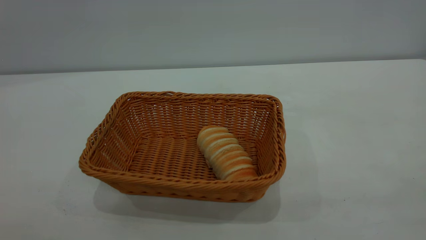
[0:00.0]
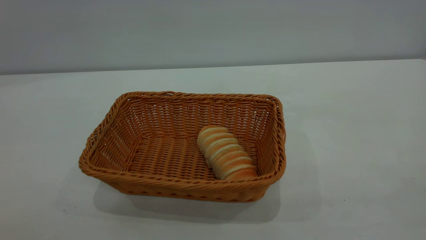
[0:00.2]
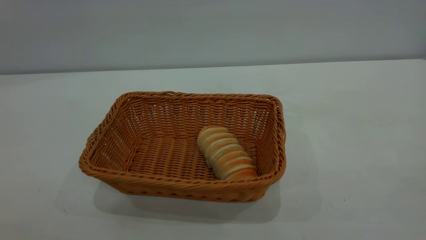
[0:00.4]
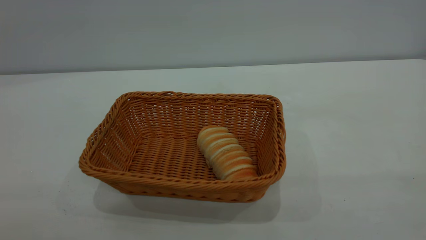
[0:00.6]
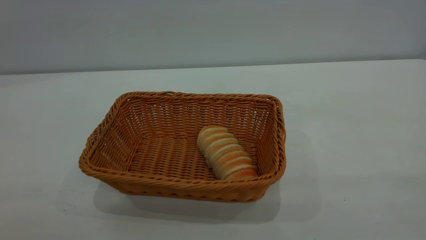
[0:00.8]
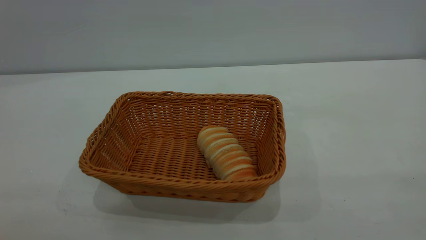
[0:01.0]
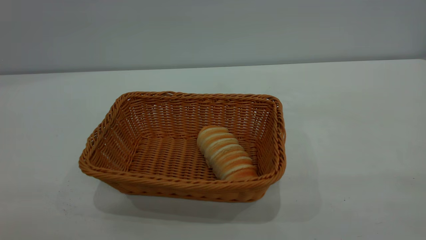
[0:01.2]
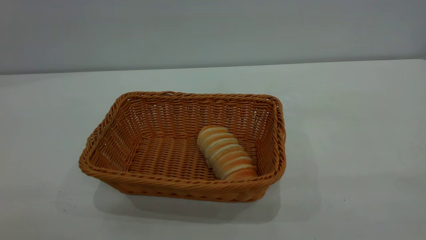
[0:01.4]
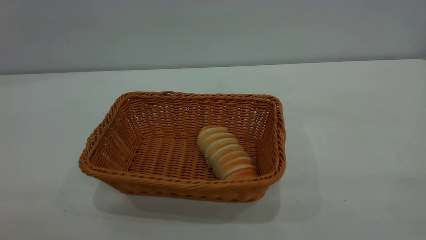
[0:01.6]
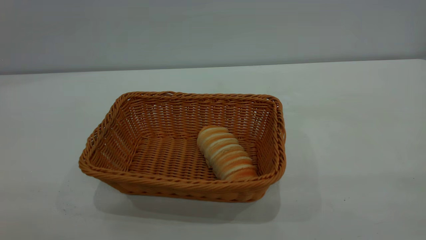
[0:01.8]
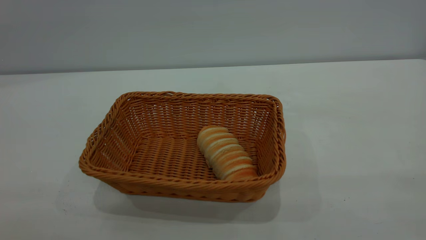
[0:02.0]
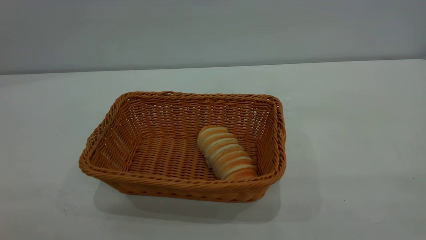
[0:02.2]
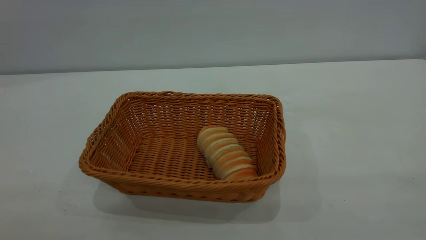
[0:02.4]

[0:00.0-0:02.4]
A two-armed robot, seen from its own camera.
Task of the whole recording: One hand grasps the yellow basket and places it in the middle of the table, while the other hand picks up the long bread and puts it into the yellow basket.
0:01.2 to 0:02.4: Both grippers stay put.

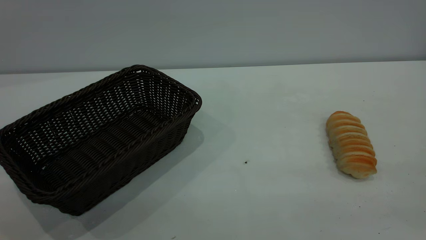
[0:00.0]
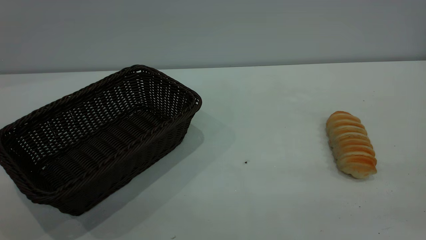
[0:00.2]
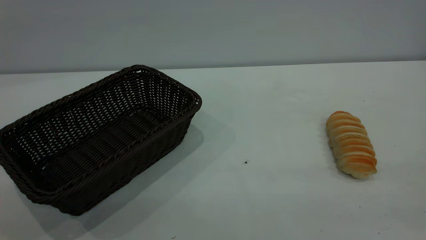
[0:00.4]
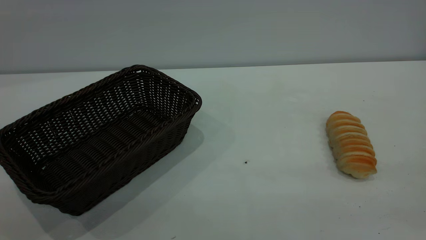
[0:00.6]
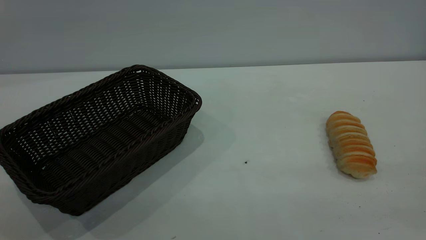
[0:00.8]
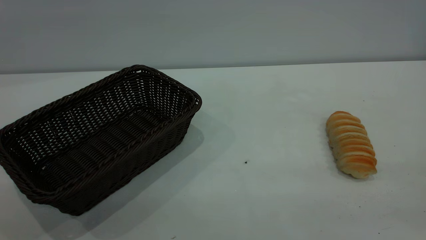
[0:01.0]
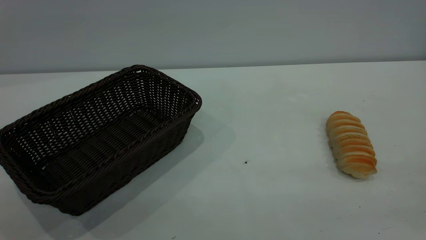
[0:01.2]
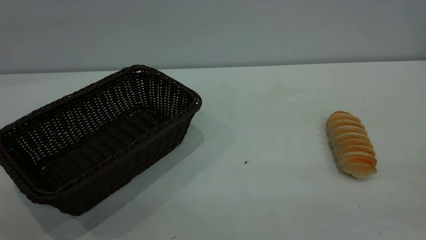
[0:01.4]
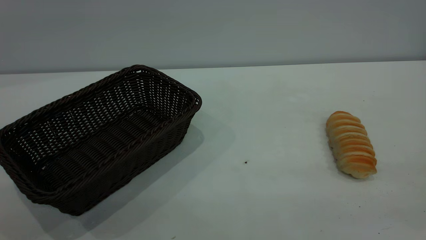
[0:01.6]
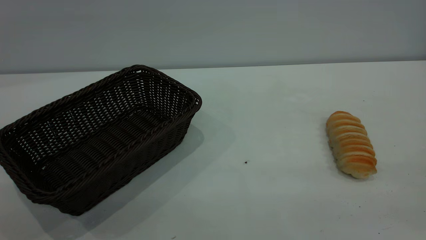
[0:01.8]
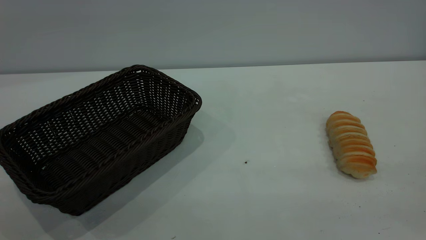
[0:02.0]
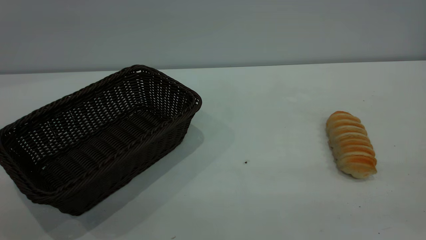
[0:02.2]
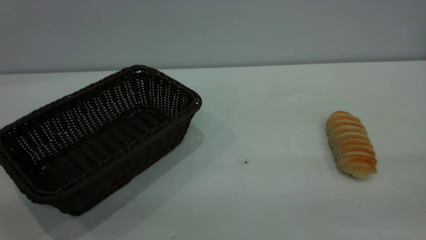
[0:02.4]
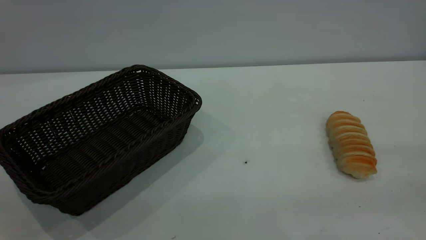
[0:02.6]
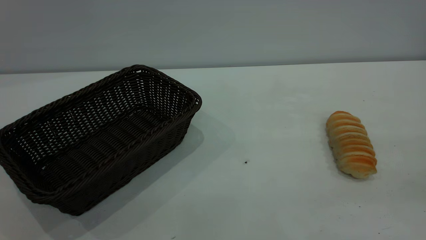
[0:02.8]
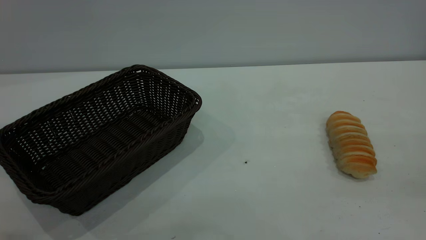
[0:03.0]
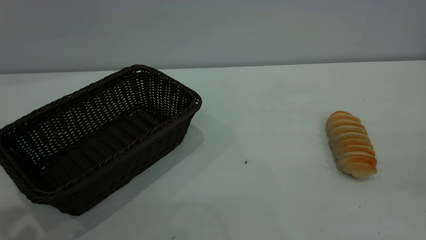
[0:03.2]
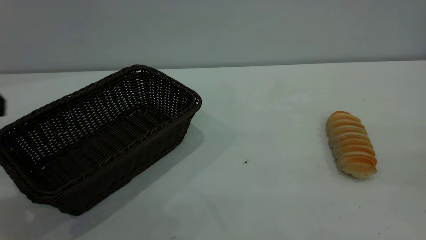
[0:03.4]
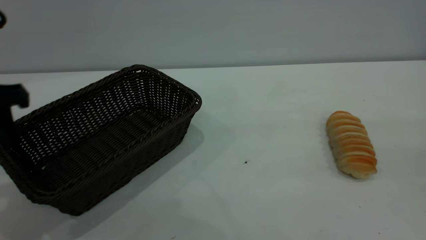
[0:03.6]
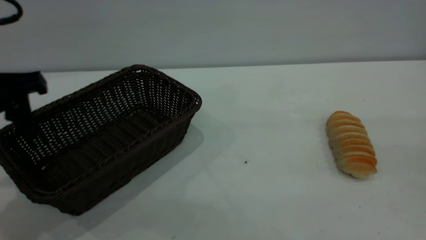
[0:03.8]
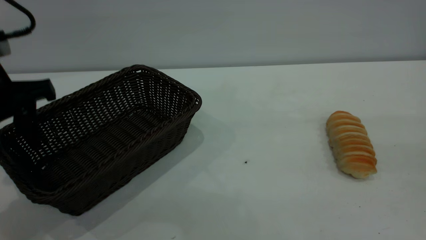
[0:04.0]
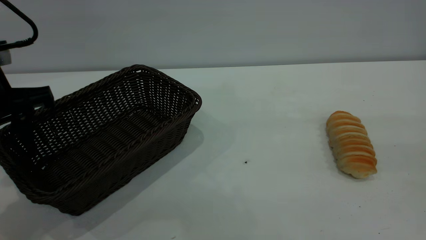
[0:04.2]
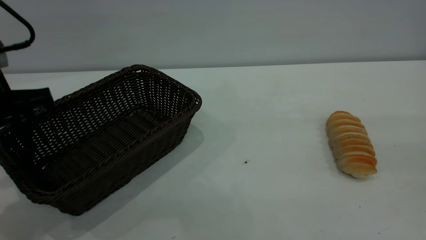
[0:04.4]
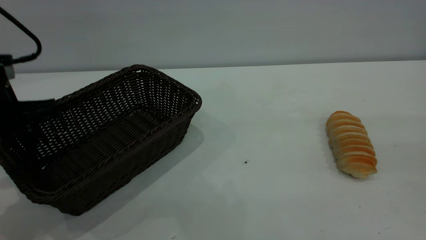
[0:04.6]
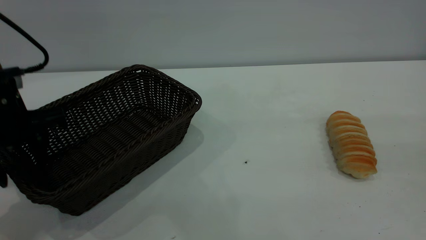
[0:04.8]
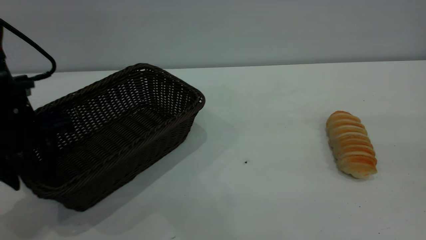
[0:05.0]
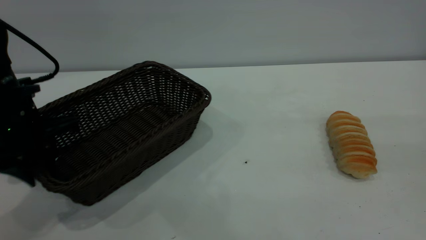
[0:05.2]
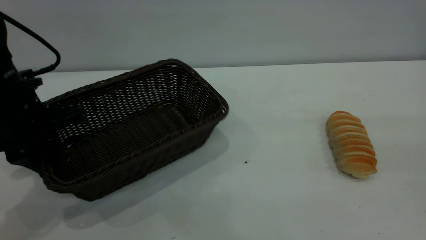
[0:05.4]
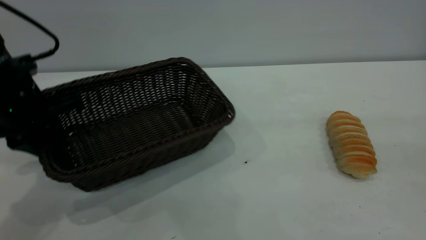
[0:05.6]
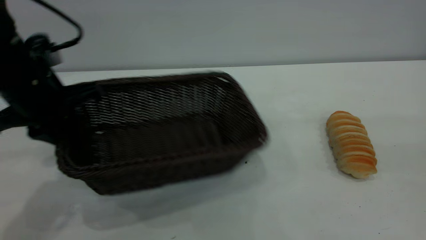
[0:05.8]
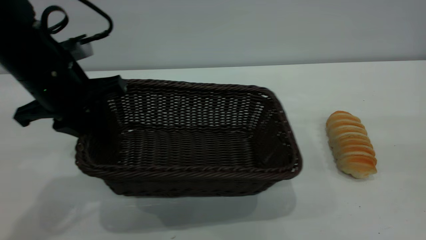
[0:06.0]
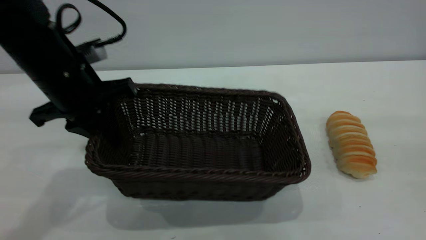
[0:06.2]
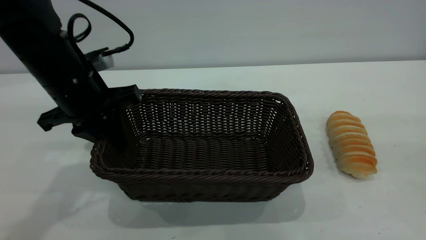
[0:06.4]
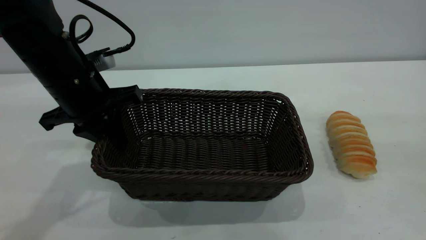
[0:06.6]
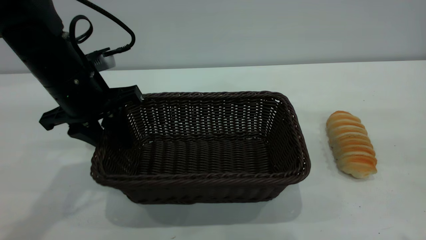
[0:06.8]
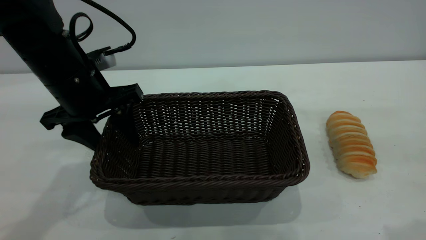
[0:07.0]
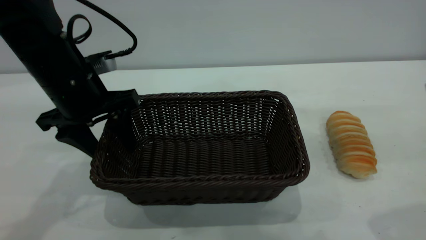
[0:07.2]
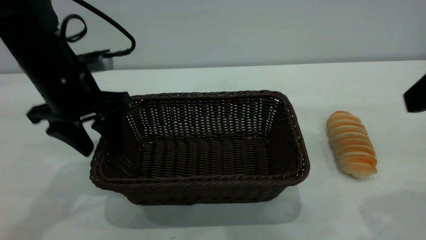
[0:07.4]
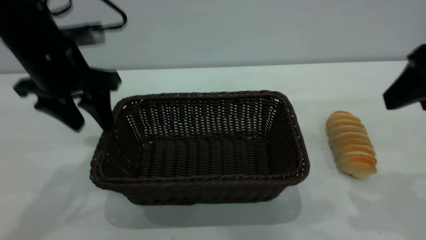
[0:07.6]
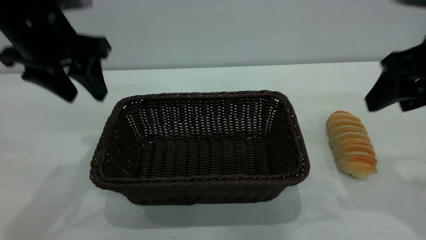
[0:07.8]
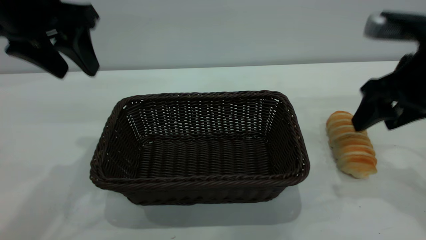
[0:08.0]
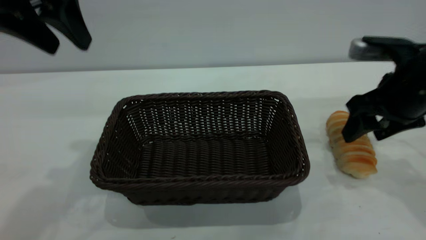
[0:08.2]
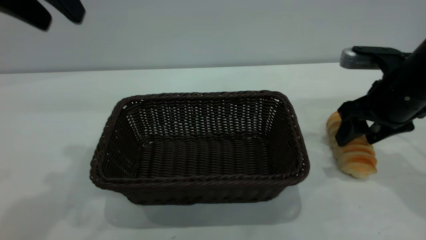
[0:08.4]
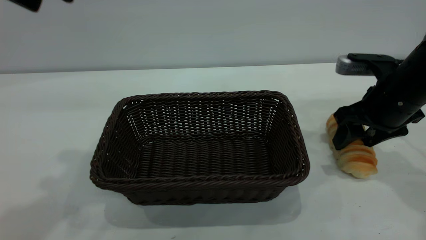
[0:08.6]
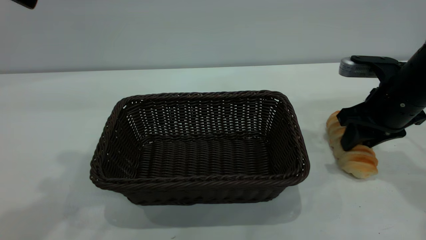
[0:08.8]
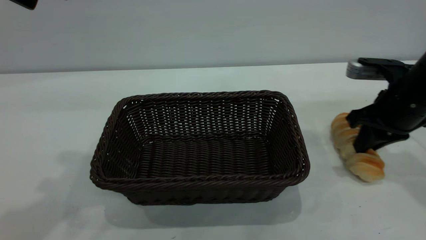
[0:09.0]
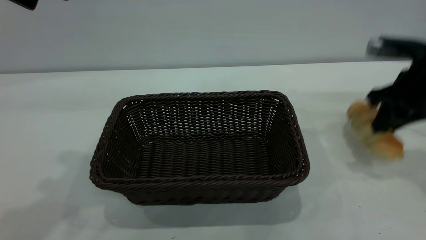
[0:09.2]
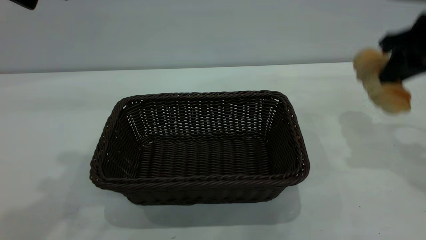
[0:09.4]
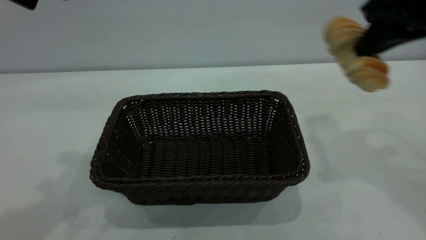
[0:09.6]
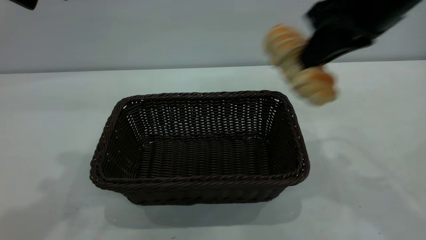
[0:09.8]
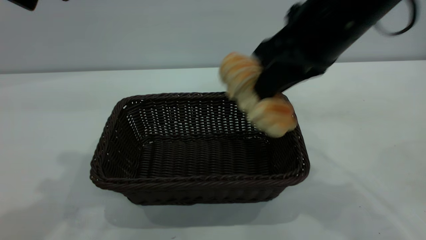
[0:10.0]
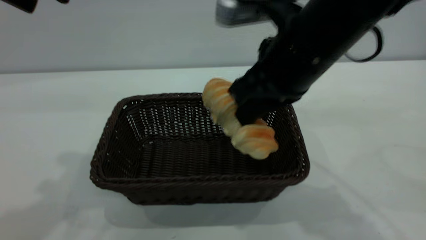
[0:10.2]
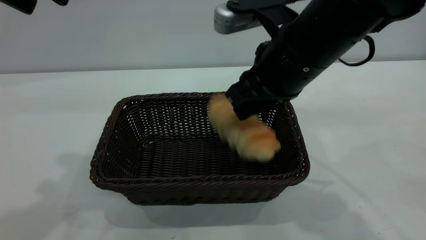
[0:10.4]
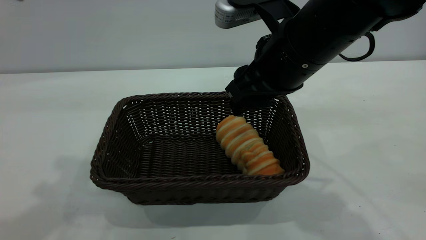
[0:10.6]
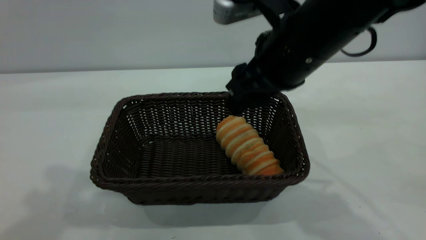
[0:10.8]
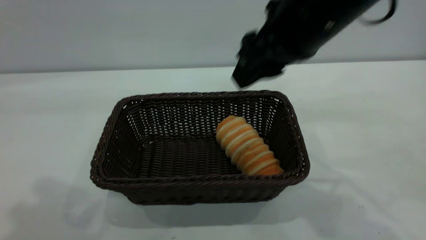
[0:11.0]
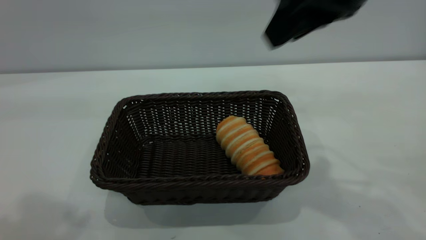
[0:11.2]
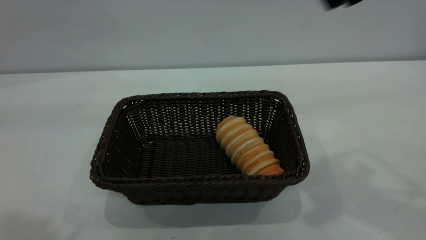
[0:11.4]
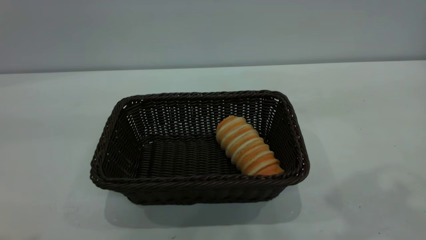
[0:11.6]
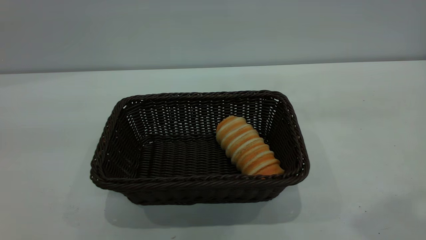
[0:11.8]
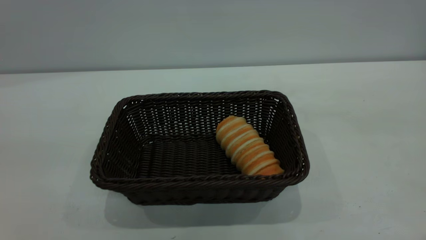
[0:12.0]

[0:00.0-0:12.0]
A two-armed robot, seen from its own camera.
Task of the whole recording: One hand grasps the black basket and places it in the middle of the table, while the other hand picks up the long bread and puts it into the black basket.
Step, 0:00.0 to 0:07.6: Move the basket to the center of view.
Step, 0:09.4 to 0:11.0: place the bread into the basket.
0:03.0 to 0:04.4: The left gripper shifts some 15 cm forward and downward.
0:04.4 to 0:06.0: The left gripper goes about 5 cm to the right, and closes its fingers.
0:06.0 to 0:07.6: The right gripper travels forward and downward by about 15 cm. Meanwhile the left gripper opens its fingers.
0:07.6 to 0:09.0: The left gripper shifts approximately 15 cm upward; the right gripper shifts roughly 15 cm downward and forward, and closes its fingers.
0:09.0 to 0:10.4: The right gripper goes some 20 cm to the left and upward, and opens.
0:10.4 to 0:12.0: The right gripper goes roughly 35 cm upward, backward and to the right. Meanwhile the left gripper is displaced backward by some 20 cm.
